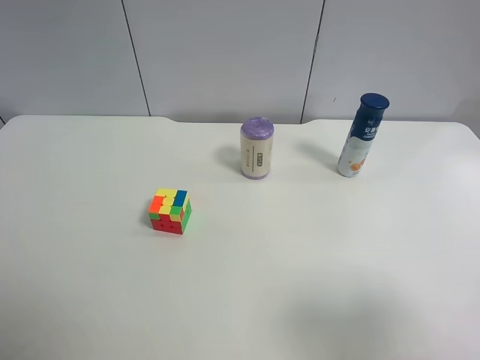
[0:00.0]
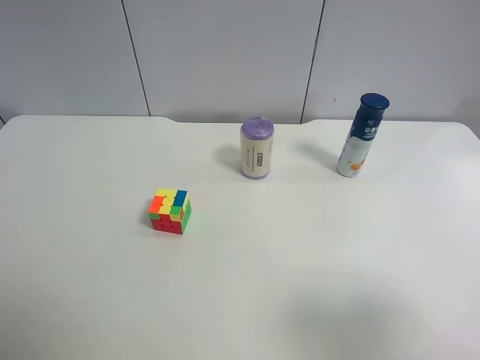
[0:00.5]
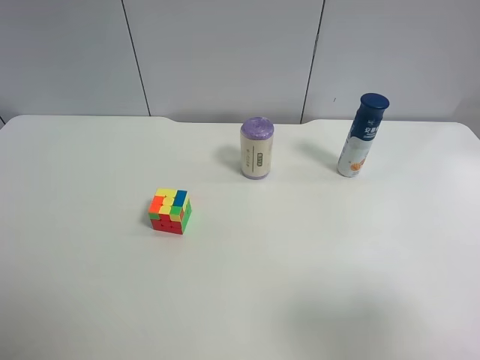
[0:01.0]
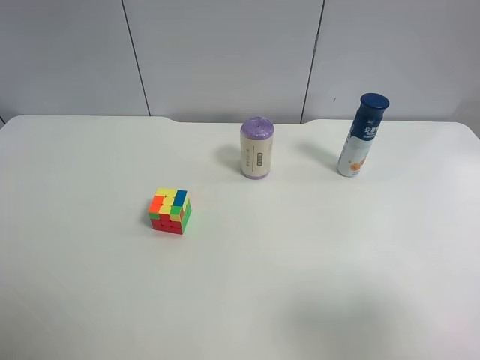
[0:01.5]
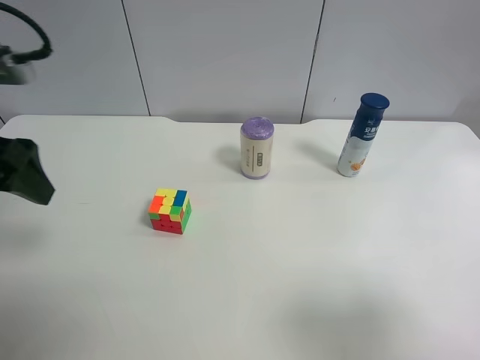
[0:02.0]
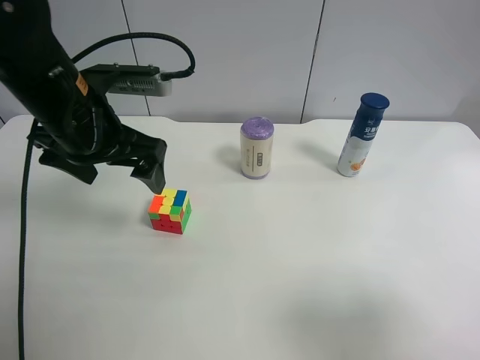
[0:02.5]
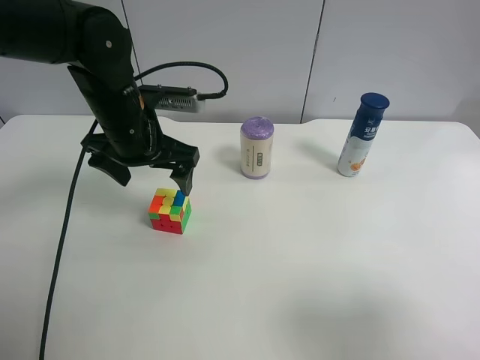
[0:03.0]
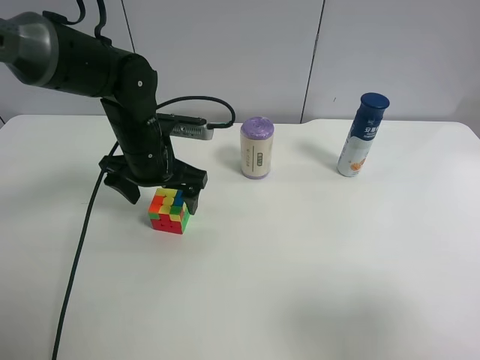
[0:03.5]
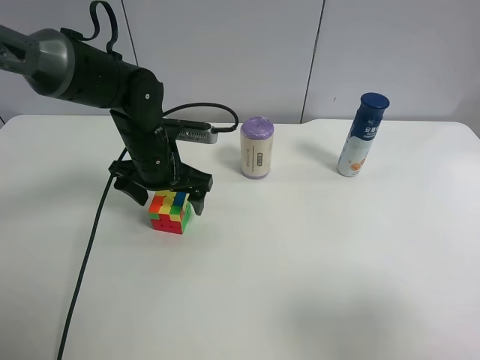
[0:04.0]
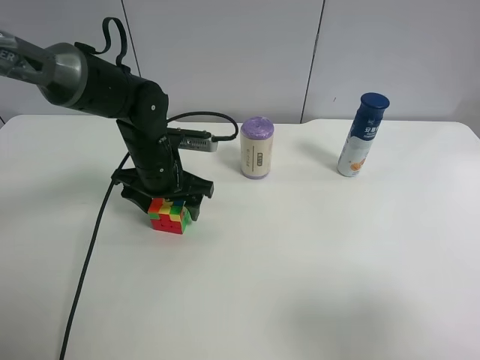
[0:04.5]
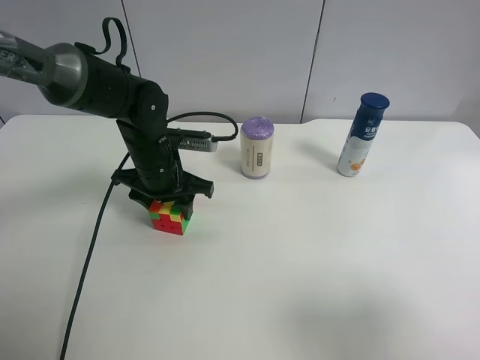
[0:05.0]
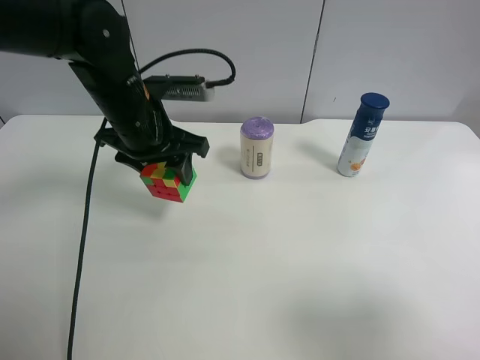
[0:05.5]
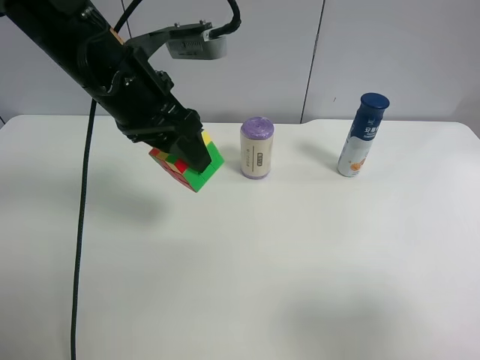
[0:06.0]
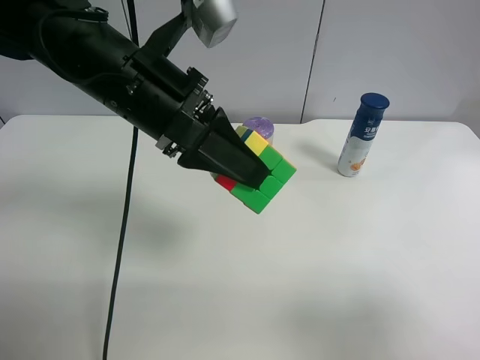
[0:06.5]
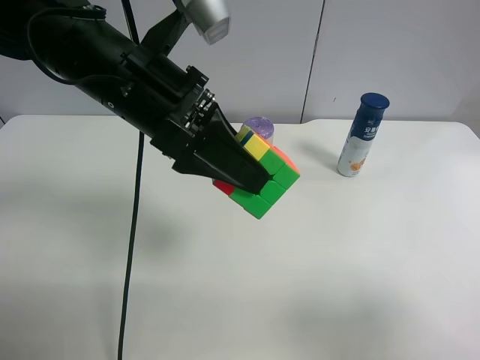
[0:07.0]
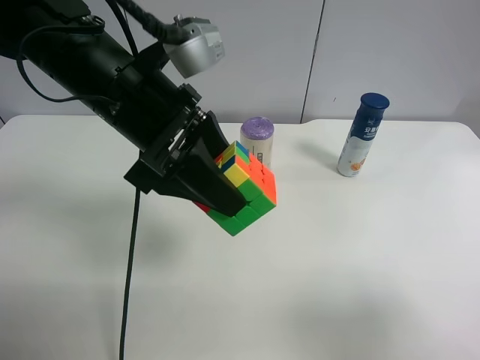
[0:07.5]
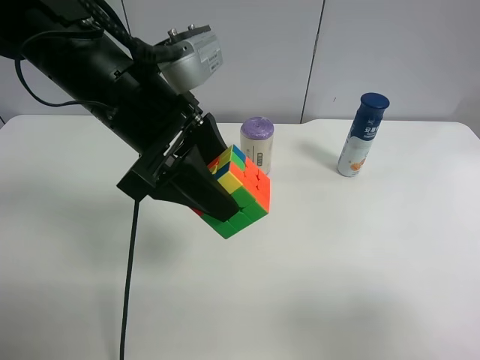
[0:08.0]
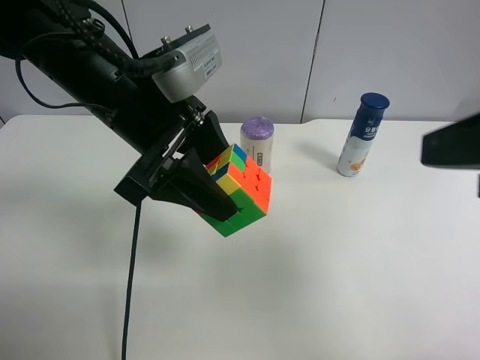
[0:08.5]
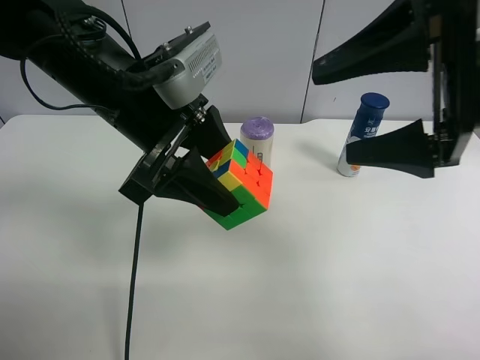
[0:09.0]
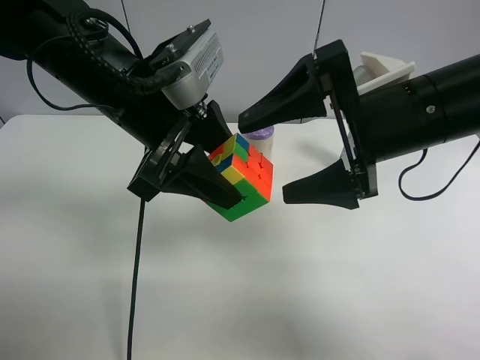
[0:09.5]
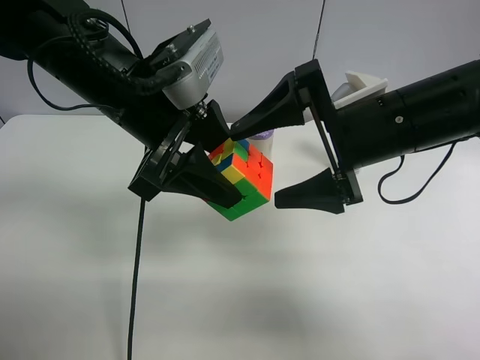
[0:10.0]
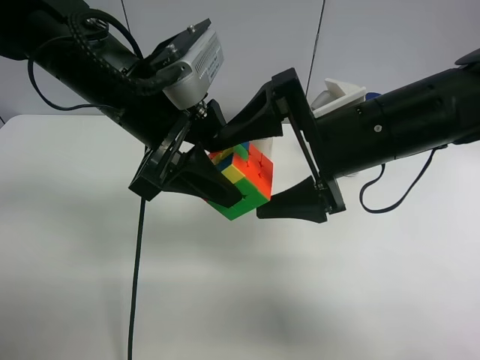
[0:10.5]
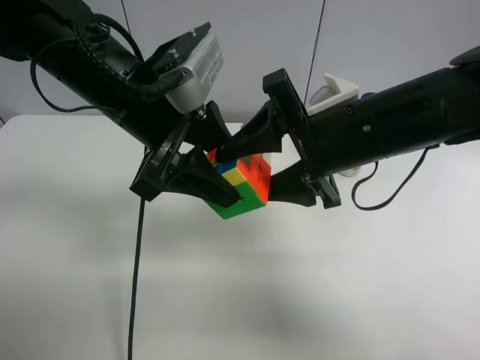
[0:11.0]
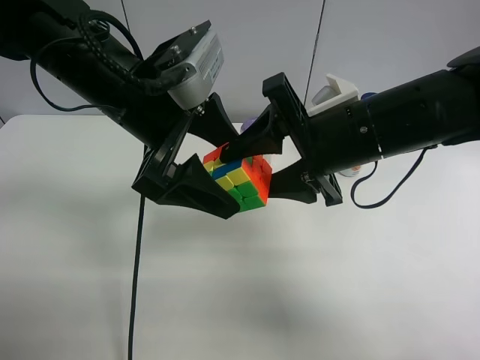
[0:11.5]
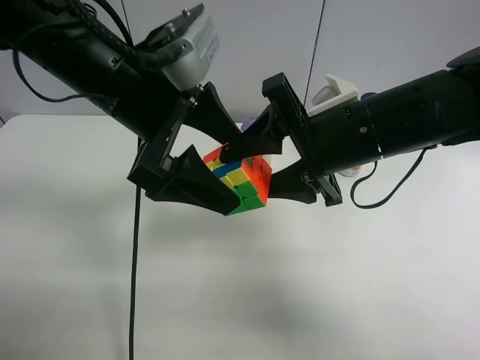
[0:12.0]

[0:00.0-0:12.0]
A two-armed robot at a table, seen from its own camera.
Task of the whole recording: use the left gripper to pick up the item and transfer it from the left gripper to the right gripper.
0:00.0 to 0:02.0: The left gripper shifts some 20 cm forward.
0:02.0 to 0:04.0: The left gripper travels downward, to the right and forward by roughly 25 cm.
0:04.0 to 0:06.0: The left gripper moves upward and backward, about 15 cm, and closes up.
0:08.0 to 0:10.0: The right gripper shifts roughly 25 cm forward and to the left.
0:10.0 to 0:12.0: The left gripper opens; the right gripper closes up.

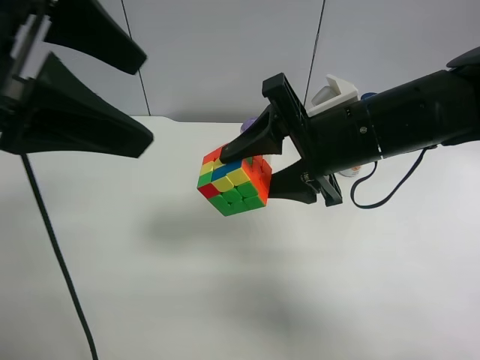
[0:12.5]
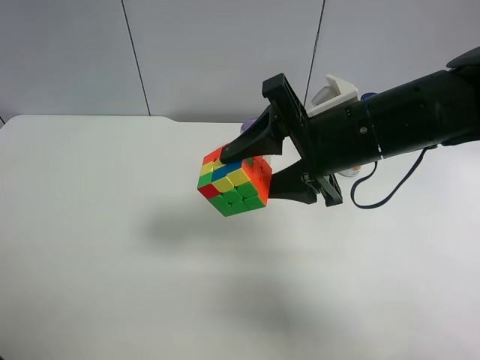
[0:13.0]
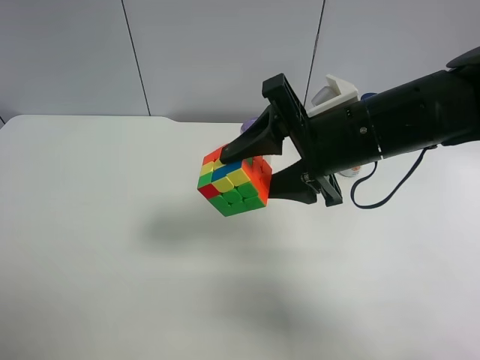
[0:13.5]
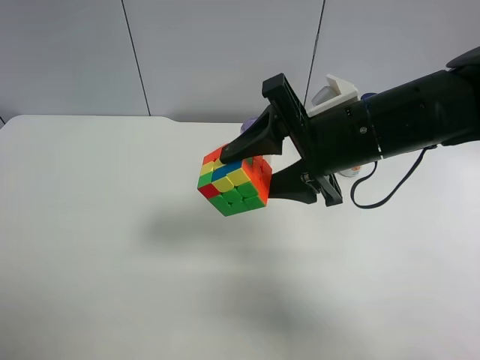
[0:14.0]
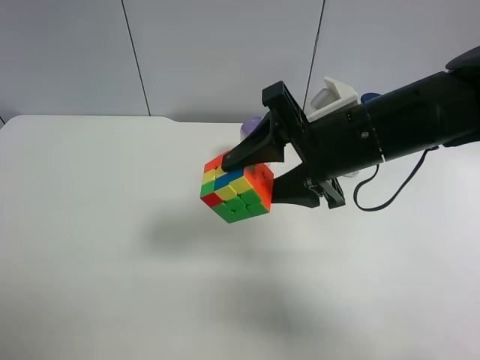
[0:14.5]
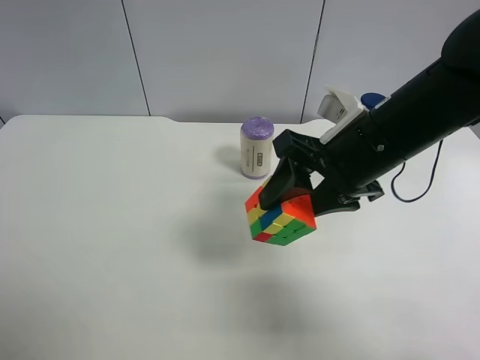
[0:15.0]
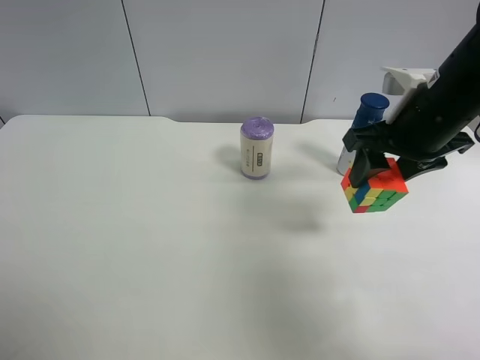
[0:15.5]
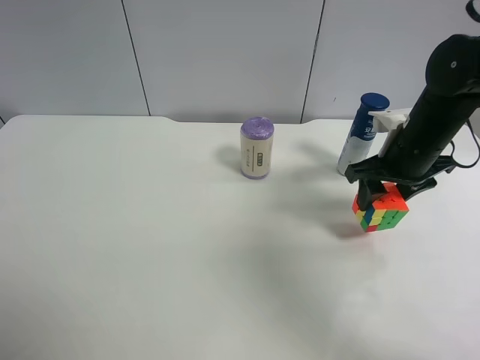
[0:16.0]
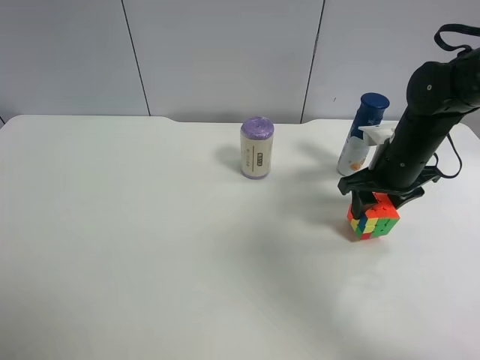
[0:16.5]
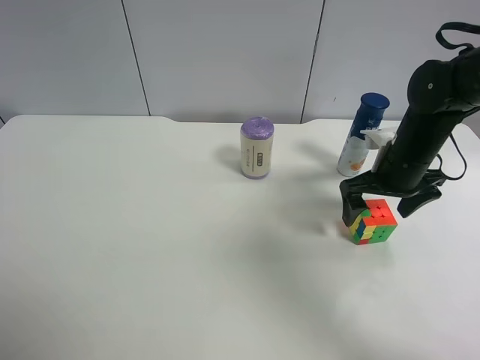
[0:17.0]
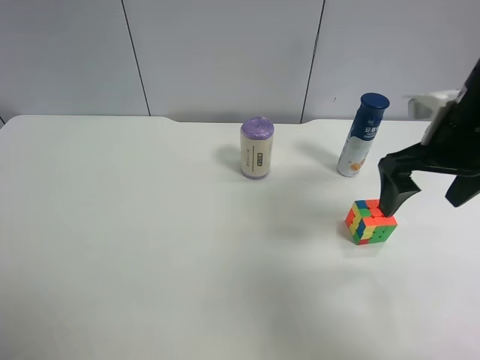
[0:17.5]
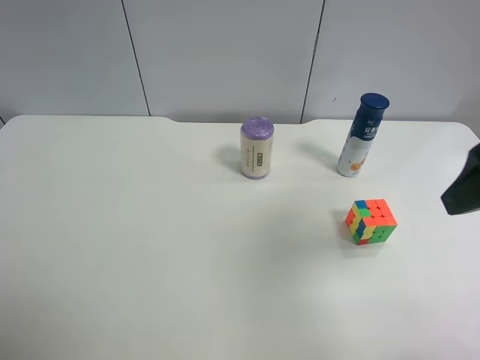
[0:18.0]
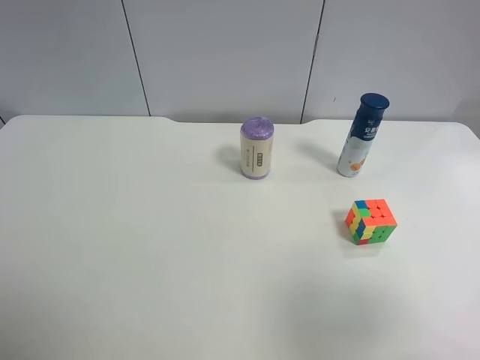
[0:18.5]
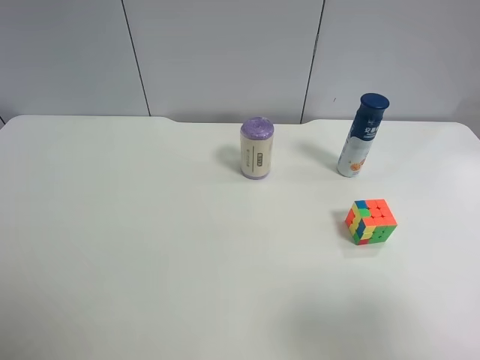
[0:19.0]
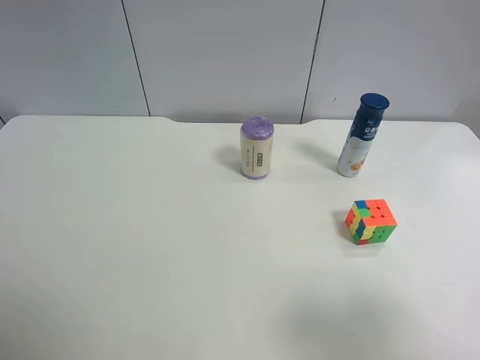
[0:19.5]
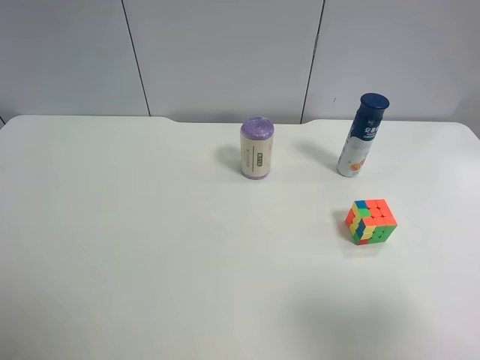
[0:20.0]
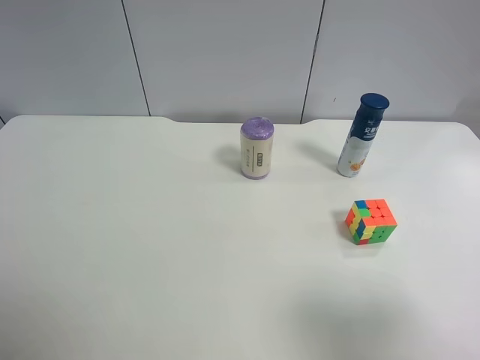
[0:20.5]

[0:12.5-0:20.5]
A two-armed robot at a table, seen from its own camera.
Task of the whole recording: use the left gripper to pick up the item and transfer it from the left gripper to the right gripper.
0:12.5 to 0:14.5: The left gripper shifts some 25 cm backward, to the left and downward.
0:14.5 to 0:16.5: The right gripper travels to the right, downward and forward by about 15 cm.
0:16.5 to 0:18.5: The right gripper heads backward and upward, covering roughly 35 cm, and opens its fingers.
